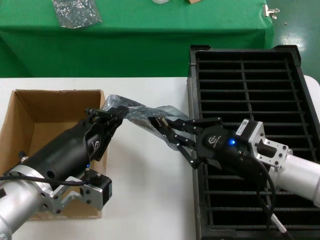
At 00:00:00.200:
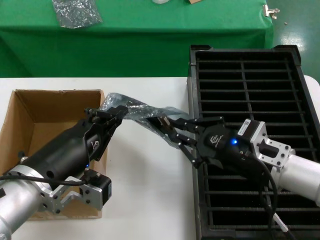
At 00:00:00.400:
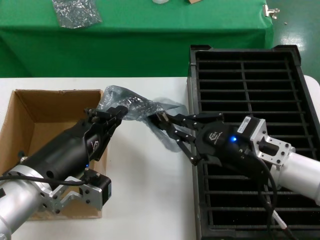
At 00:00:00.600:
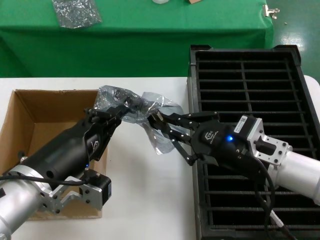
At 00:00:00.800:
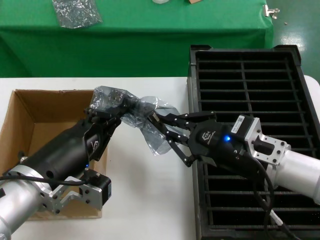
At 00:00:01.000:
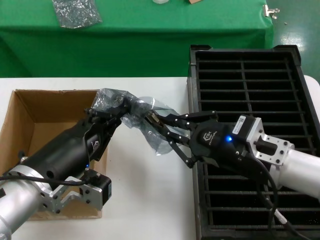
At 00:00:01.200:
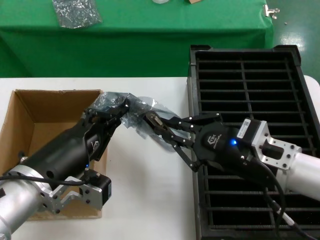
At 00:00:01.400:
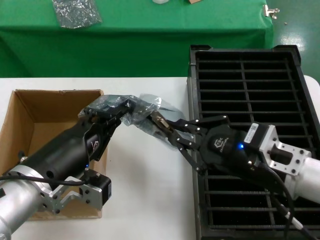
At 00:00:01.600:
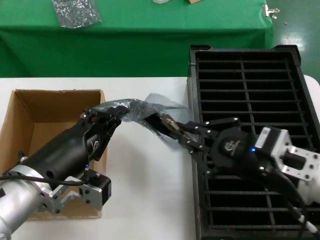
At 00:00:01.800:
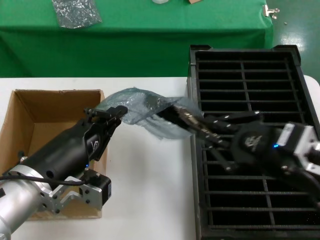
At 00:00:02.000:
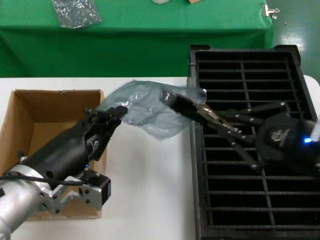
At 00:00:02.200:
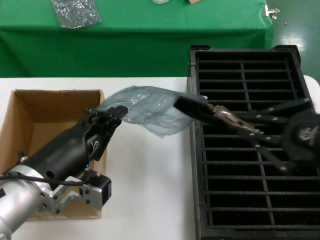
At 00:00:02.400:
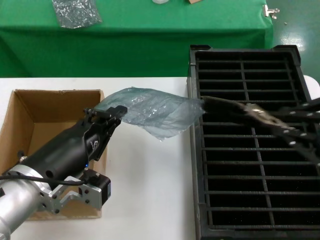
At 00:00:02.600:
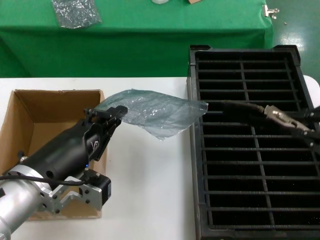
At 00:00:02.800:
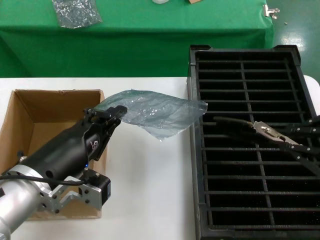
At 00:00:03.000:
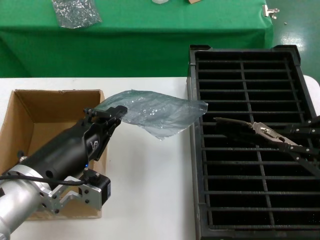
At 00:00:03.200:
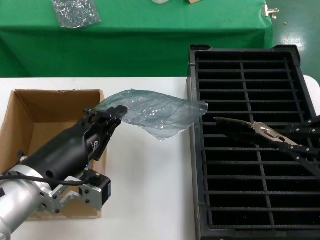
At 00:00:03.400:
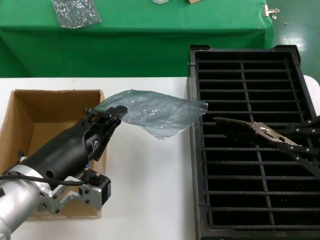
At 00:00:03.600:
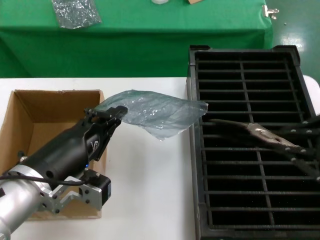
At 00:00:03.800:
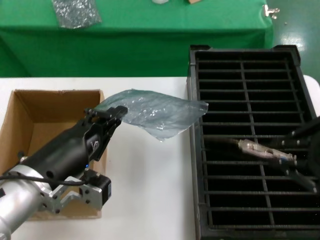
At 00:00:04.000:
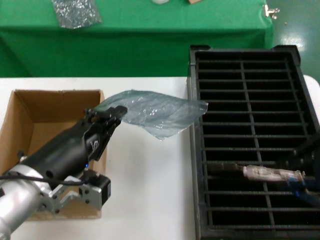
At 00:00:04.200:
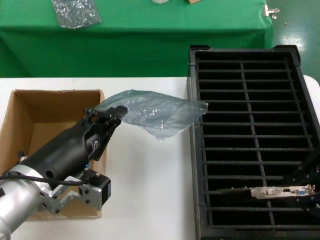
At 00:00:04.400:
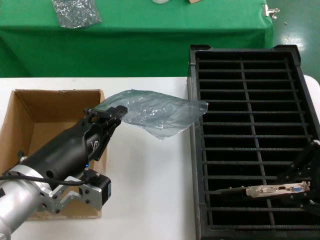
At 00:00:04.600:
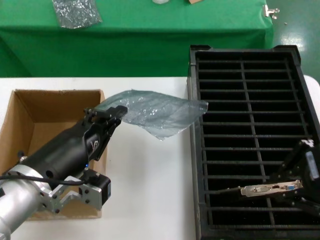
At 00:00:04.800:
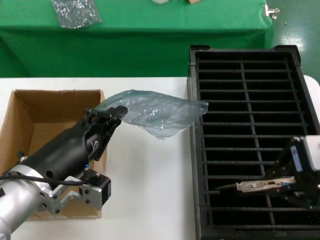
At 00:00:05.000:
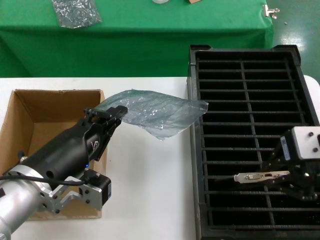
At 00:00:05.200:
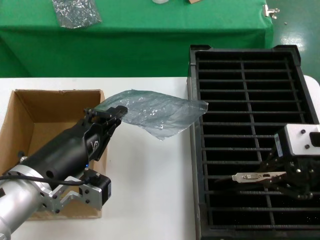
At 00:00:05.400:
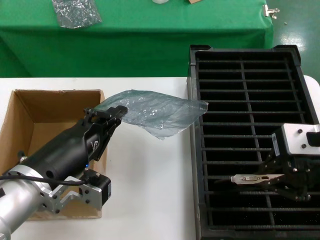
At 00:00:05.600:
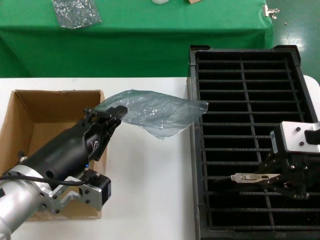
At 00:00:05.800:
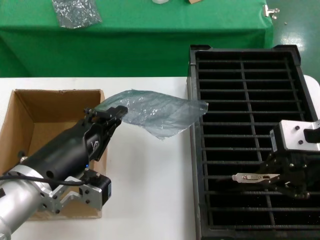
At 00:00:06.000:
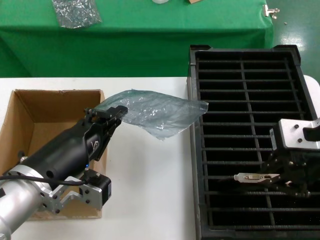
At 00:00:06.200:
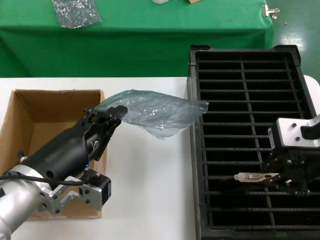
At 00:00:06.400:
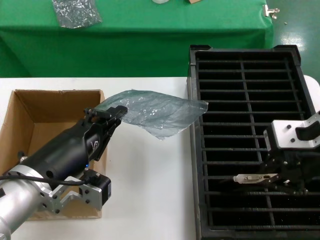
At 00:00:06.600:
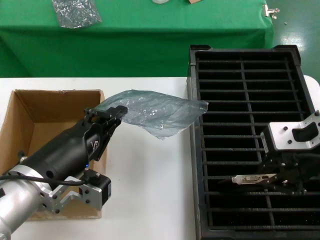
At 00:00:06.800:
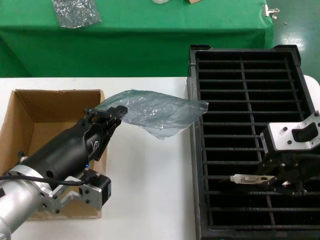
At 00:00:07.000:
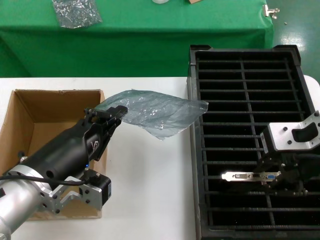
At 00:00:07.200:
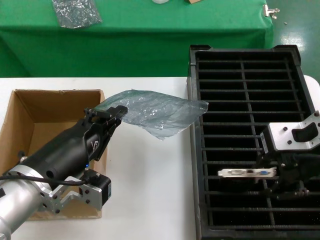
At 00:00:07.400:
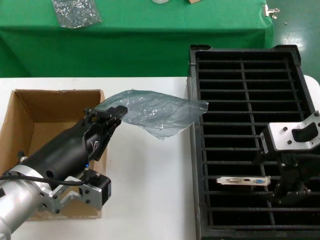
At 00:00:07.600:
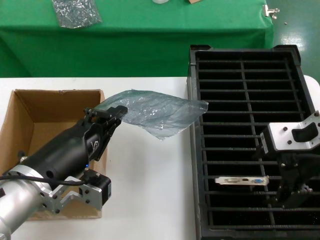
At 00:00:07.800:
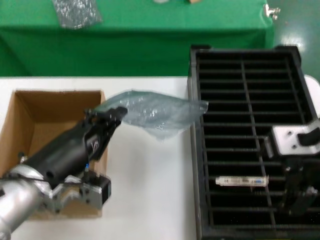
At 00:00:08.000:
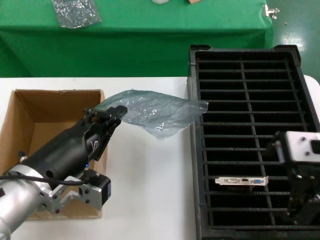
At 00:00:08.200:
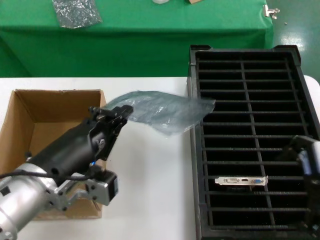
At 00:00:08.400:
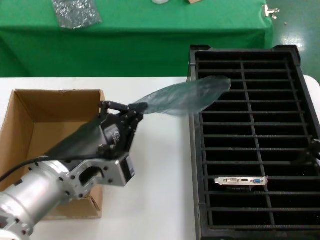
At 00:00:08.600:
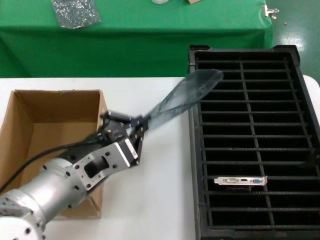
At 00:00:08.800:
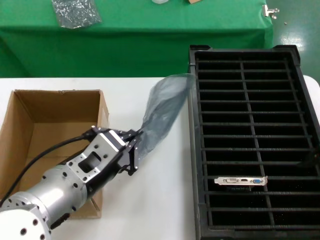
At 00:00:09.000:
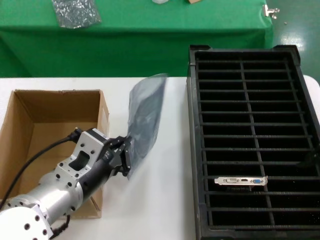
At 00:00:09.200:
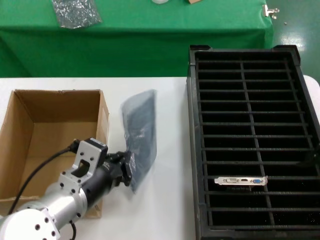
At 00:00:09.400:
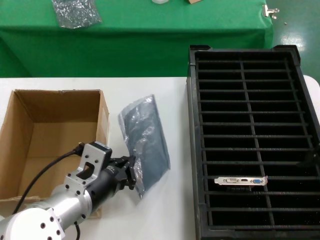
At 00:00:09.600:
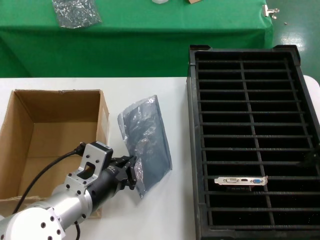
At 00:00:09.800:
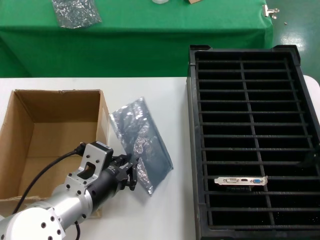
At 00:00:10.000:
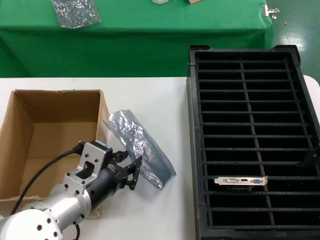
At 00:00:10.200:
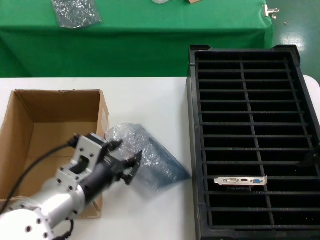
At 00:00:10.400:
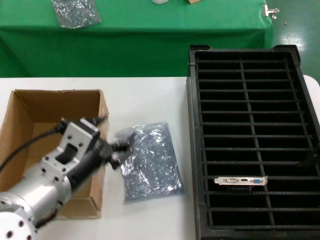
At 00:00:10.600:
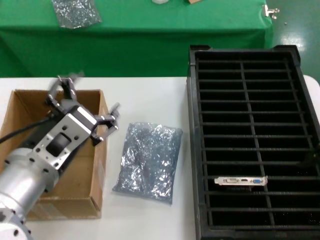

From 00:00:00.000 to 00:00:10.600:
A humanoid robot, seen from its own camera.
Task of the whole recording: take out graphics card from box remove packaging put into black container.
Step, from 00:00:00.000 to 00:00:02.200: Take out the hard disk of the bag.
Step, from 00:00:02.600 to 00:00:07.400: Place the hard disk in the hard disk enclosure.
Step, from 00:00:07.600 to 00:00:10.000: Place the down the bag.
From 00:00:00.000 to 00:00:01.600: The right hand heads backward, covering roughly 5 cm.
From 00:00:01.600 to 00:00:03.000: The right hand shifts roughly 20 cm upward, to the right and backward.
From 00:00:03.000 to 00:00:04.600: The right hand shifts about 5 cm to the left.
From 00:00:04.600 to 00:00:06.000: The right hand is displaced forward by approximately 5 cm.
From 00:00:06.000 to 00:00:07.600: The hands stay close to where they were, moving slightly.
From 00:00:07.600 to 00:00:09.000: The right hand heads to the right and backward, covering approximately 10 cm.

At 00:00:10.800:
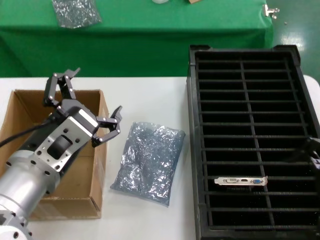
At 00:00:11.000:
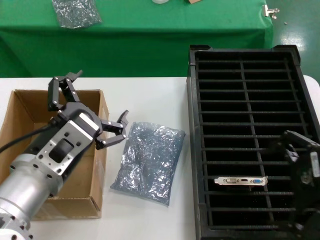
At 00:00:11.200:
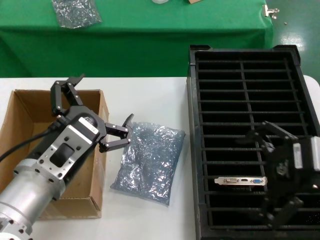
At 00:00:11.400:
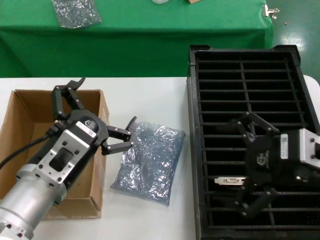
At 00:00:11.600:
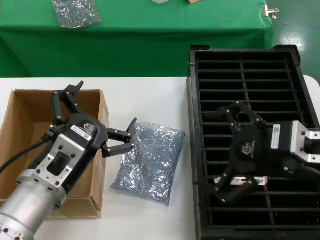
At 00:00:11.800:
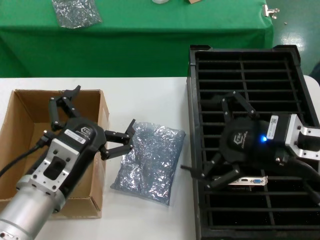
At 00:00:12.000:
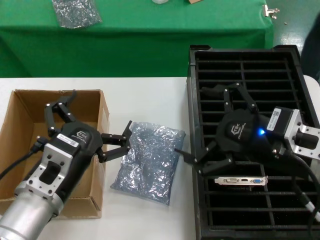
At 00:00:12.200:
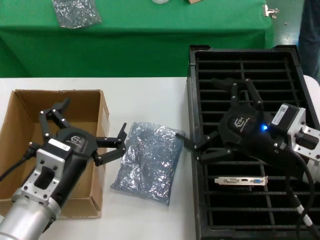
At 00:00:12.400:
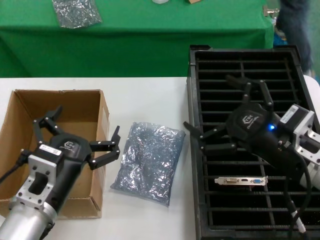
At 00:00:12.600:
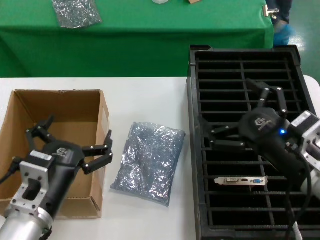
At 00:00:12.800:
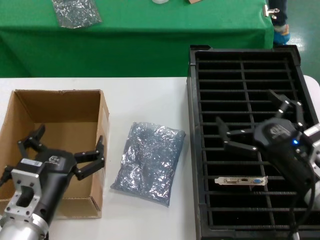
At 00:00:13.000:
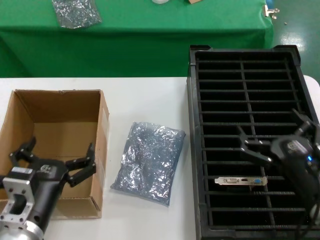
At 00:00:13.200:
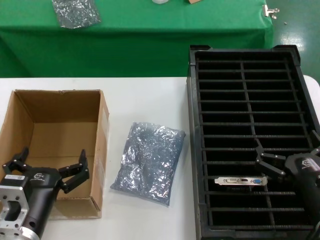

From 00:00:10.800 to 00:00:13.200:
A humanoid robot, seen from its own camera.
Task of the whole recording: take out graphics card from box remove packaging put into black container.
From 00:00:10.800 to 00:00:12.000: The right hand shifts approximately 10 cm downward, to the left and forward. The left hand is displaced downward by about 5 cm.
From 00:00:12.000 to 00:00:13.200: The right hand heads downward, covering about 15 cm. The left hand goes roughly 10 cm downward.
